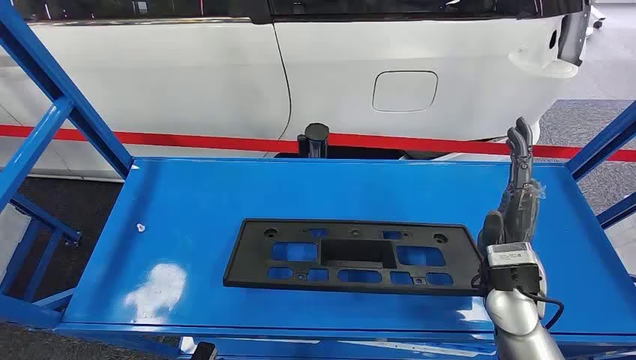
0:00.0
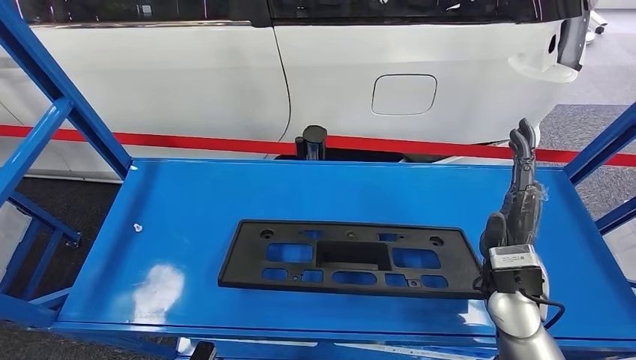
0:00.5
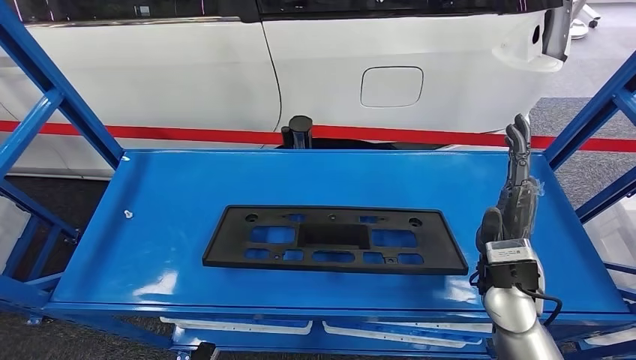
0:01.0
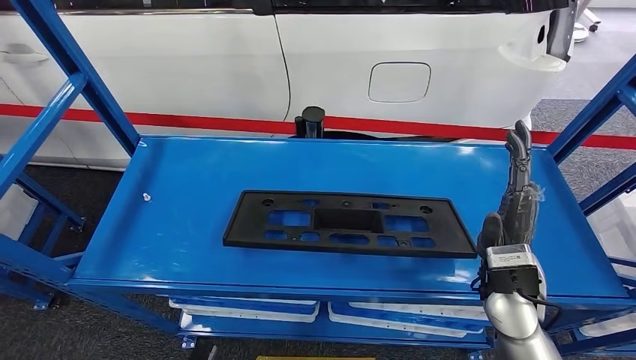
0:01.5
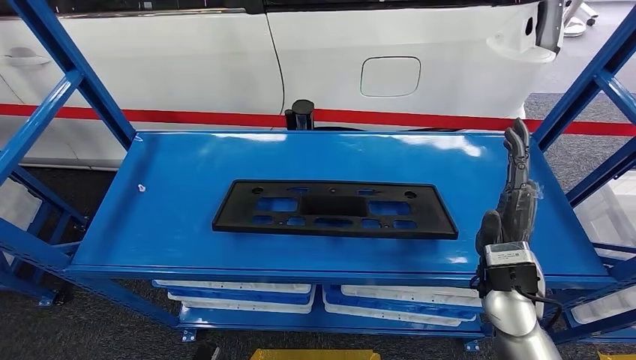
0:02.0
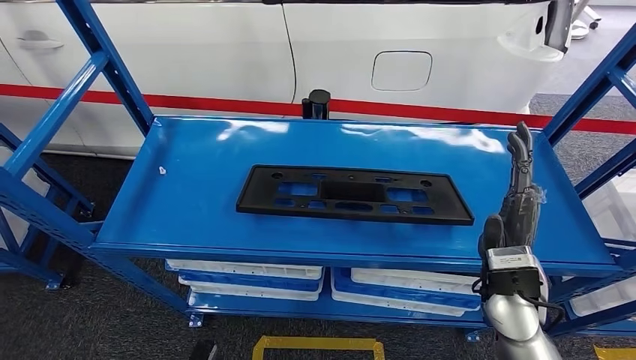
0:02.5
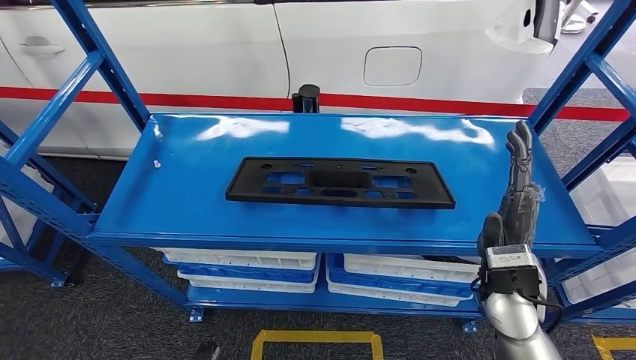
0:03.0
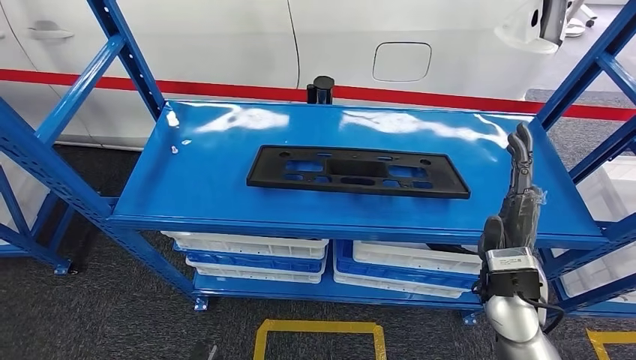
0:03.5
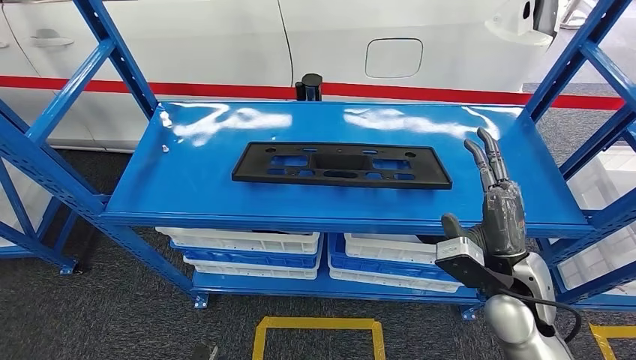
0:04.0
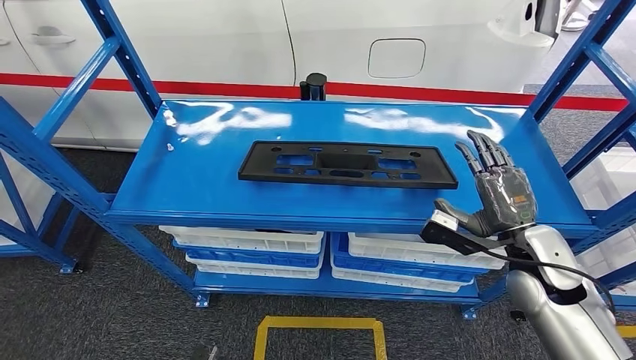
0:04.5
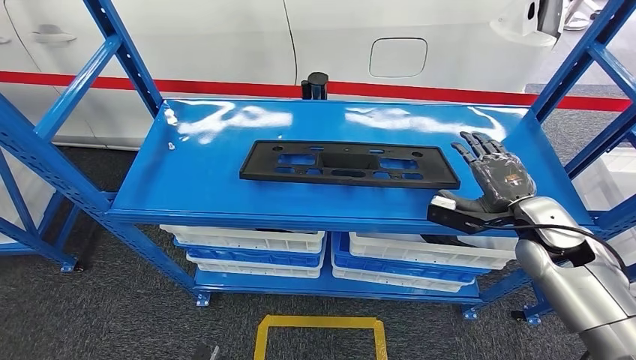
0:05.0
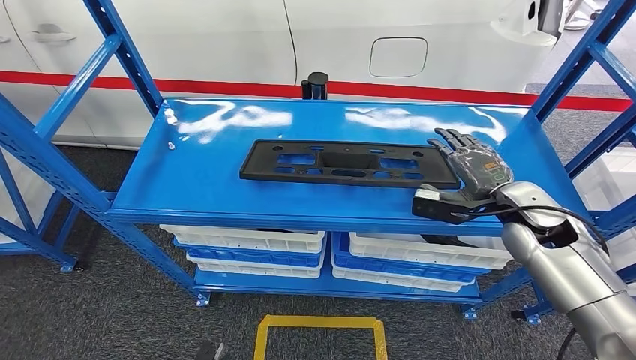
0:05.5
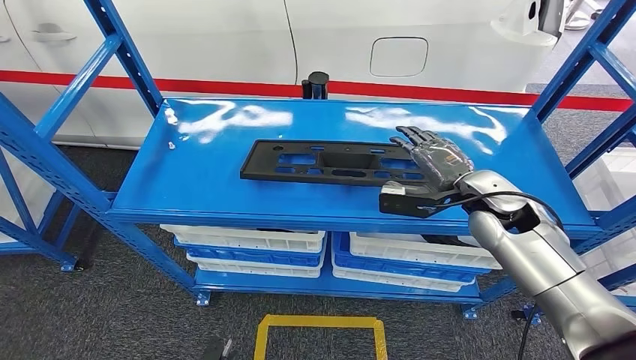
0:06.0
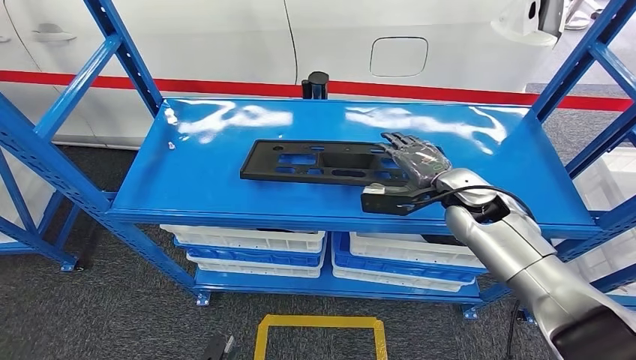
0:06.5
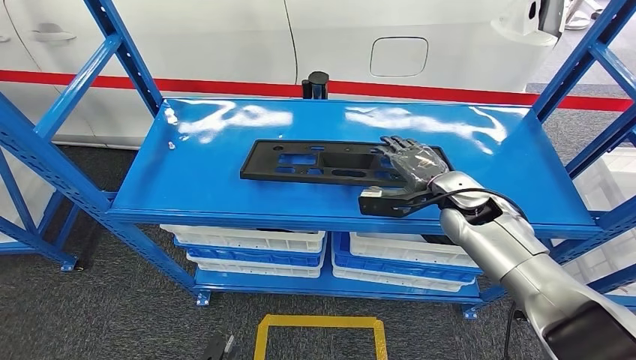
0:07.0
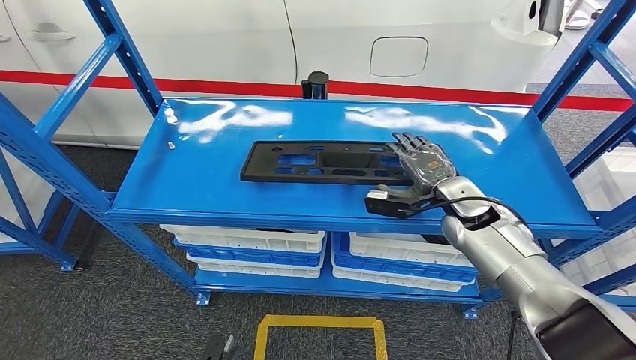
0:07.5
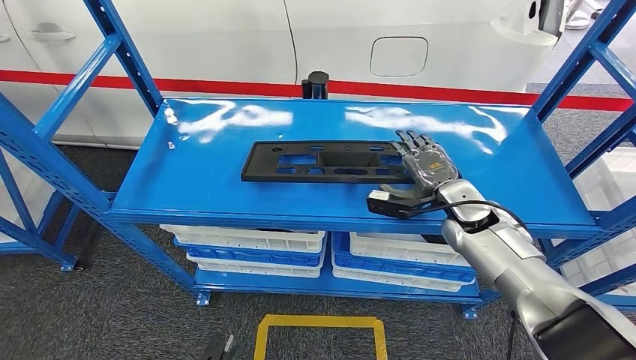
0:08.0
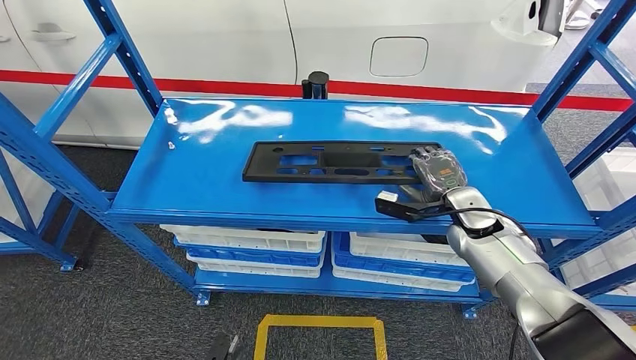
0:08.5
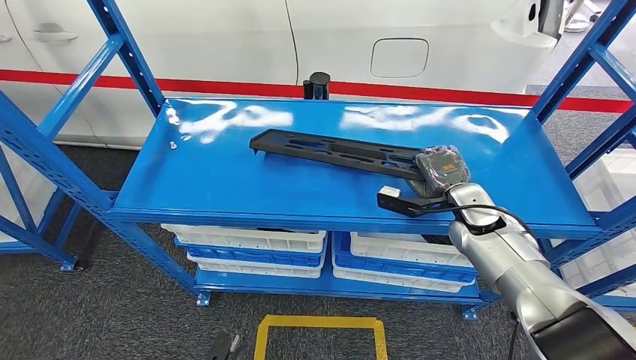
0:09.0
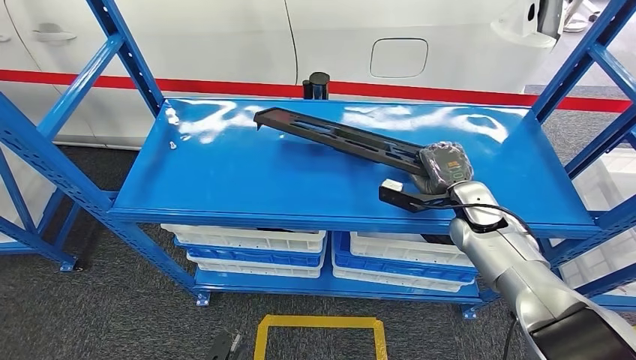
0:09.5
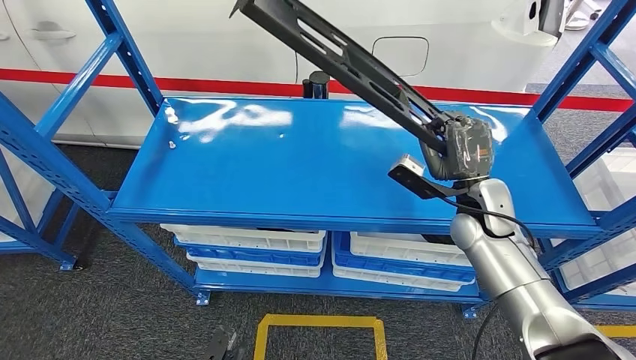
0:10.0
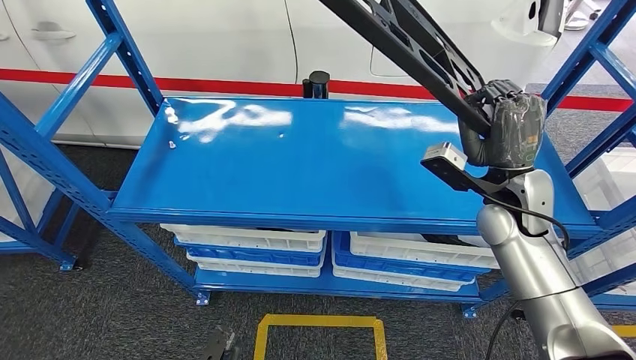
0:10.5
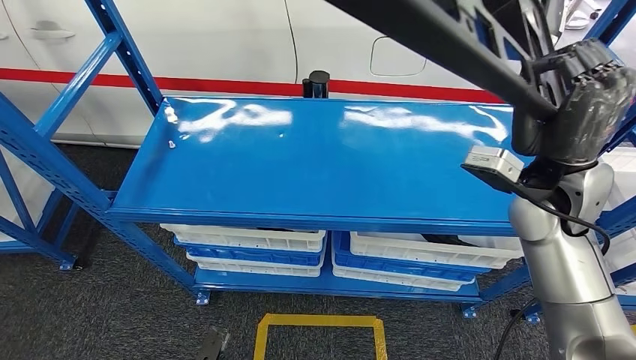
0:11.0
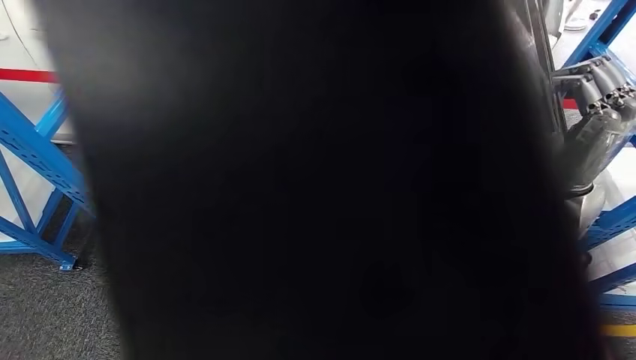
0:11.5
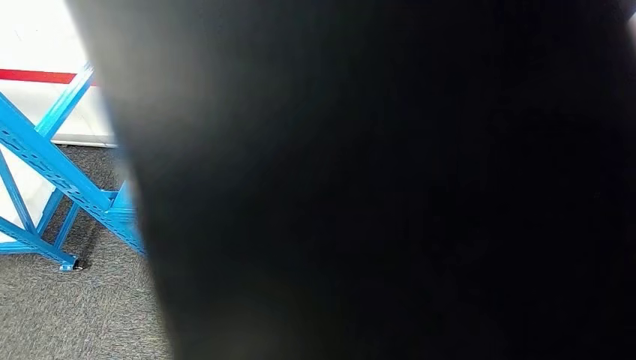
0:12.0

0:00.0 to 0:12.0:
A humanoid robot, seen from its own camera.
0:06.0 to 0:08.0: The right hand is displaced downward by roughly 5 cm.

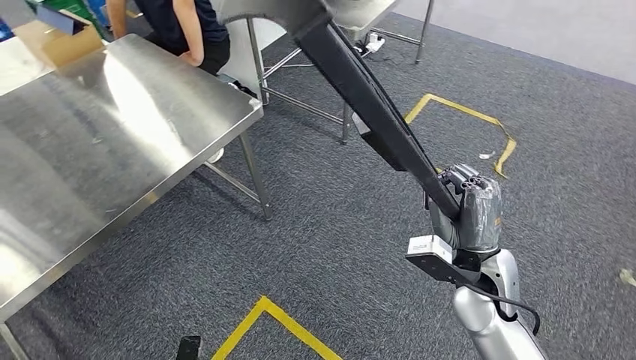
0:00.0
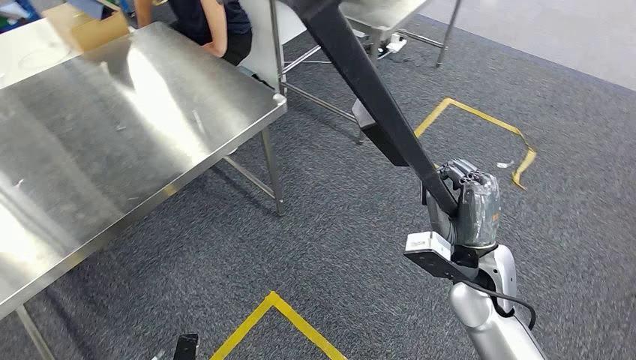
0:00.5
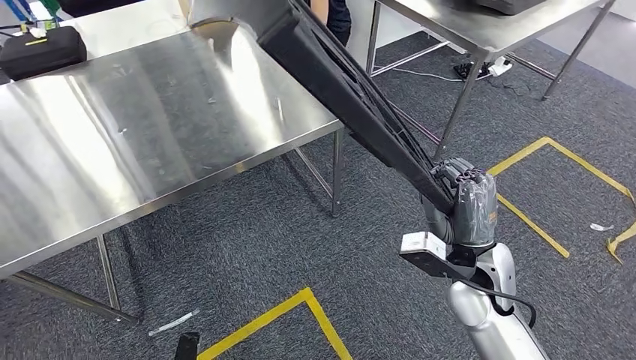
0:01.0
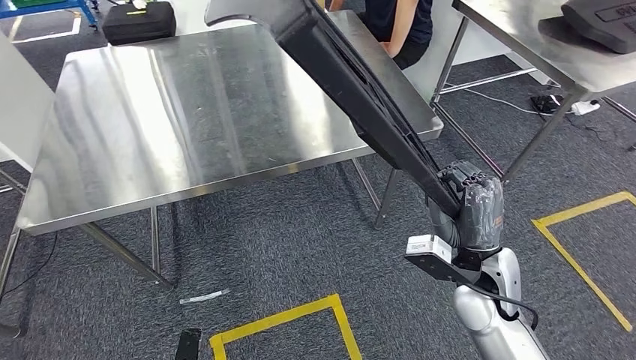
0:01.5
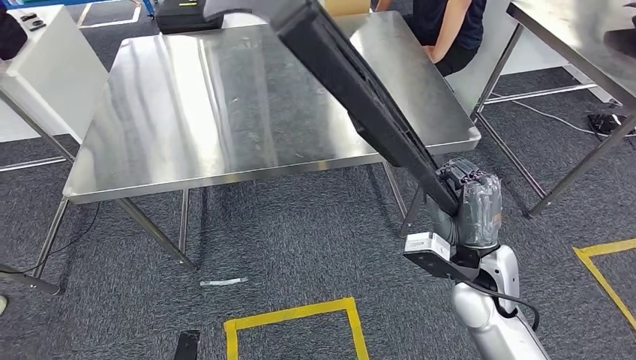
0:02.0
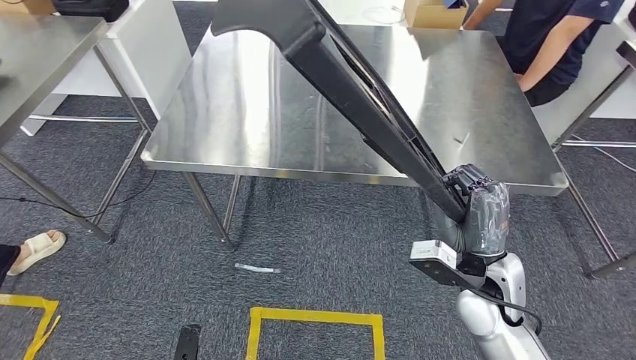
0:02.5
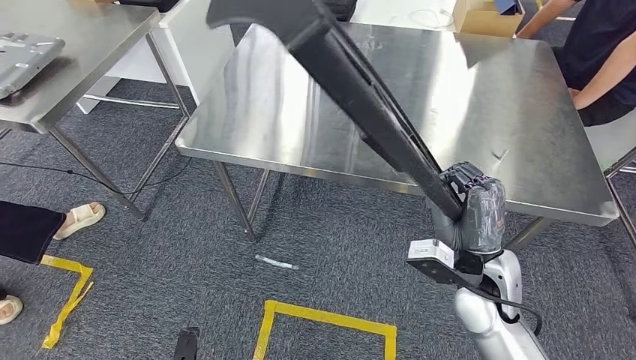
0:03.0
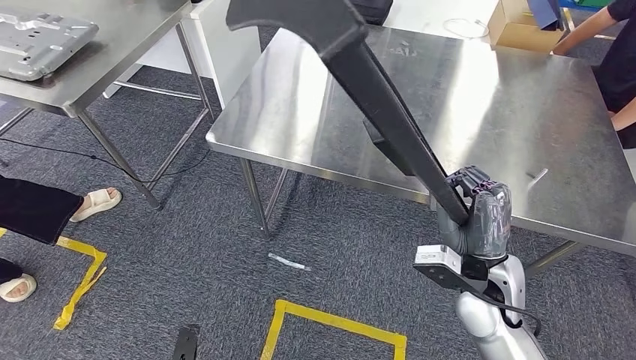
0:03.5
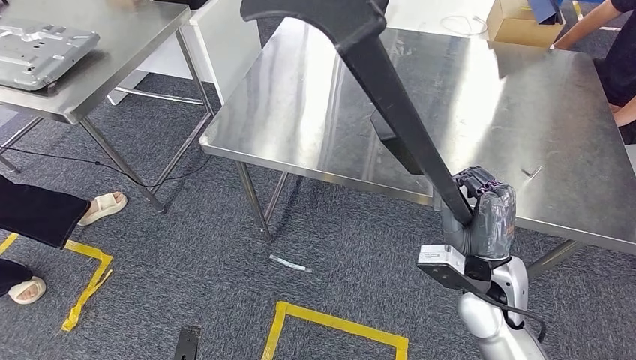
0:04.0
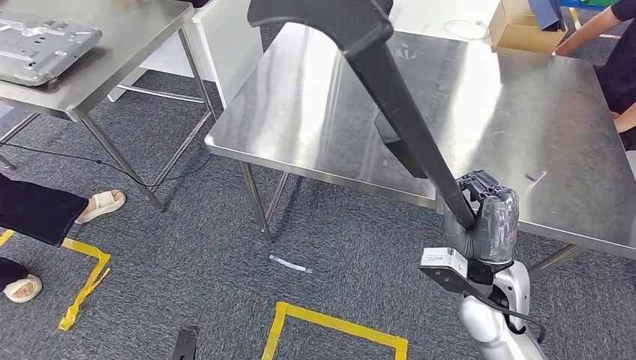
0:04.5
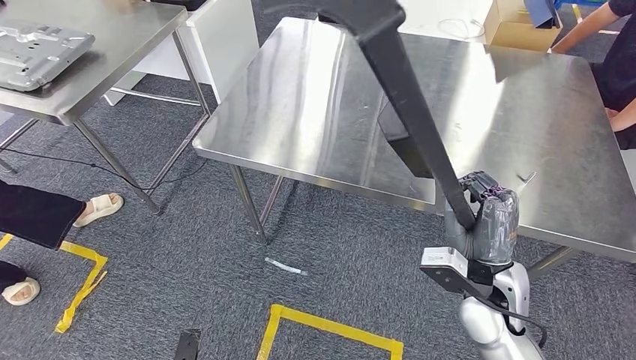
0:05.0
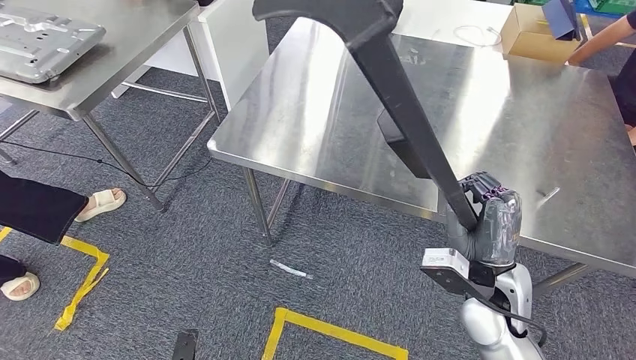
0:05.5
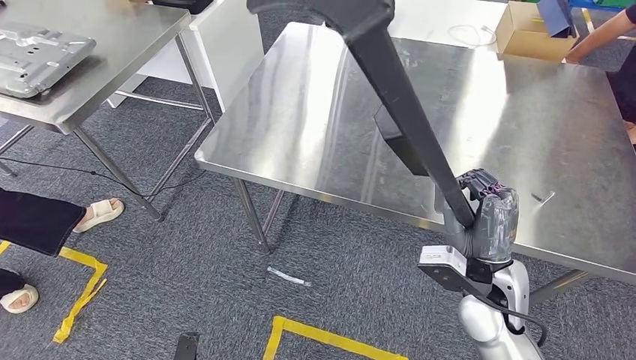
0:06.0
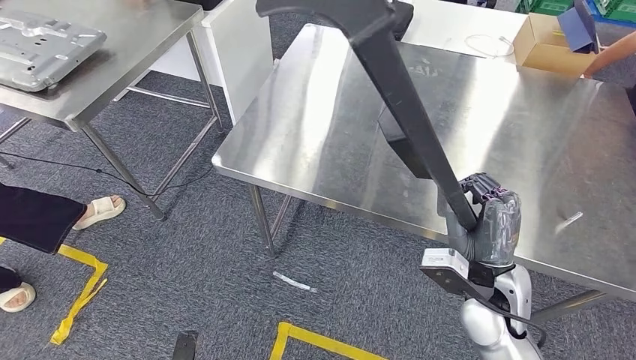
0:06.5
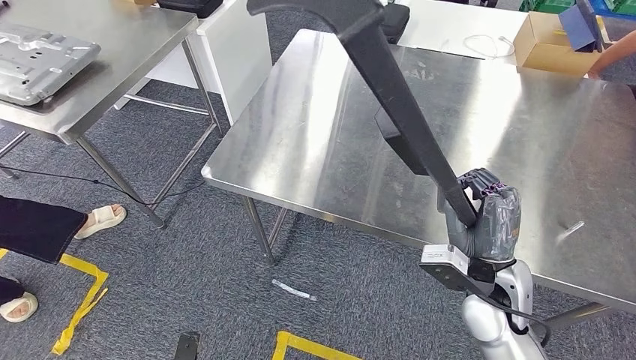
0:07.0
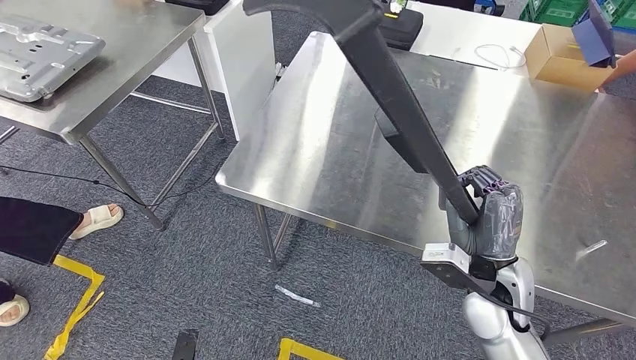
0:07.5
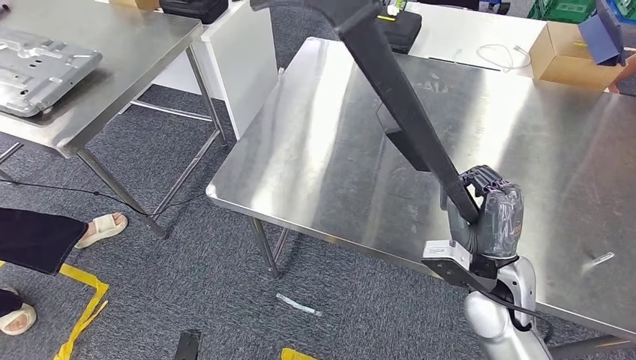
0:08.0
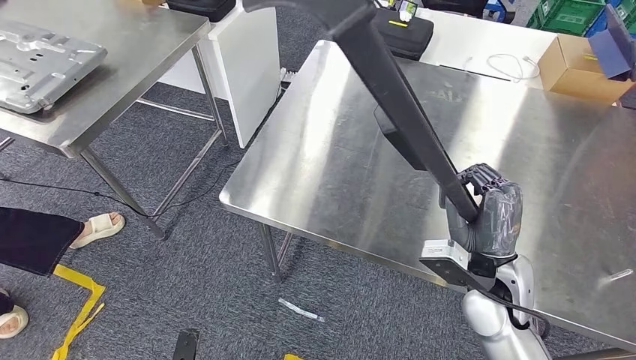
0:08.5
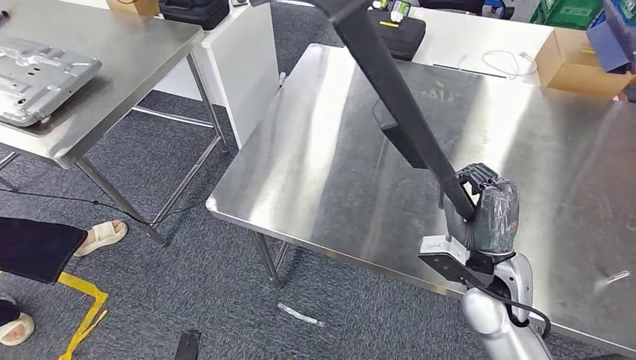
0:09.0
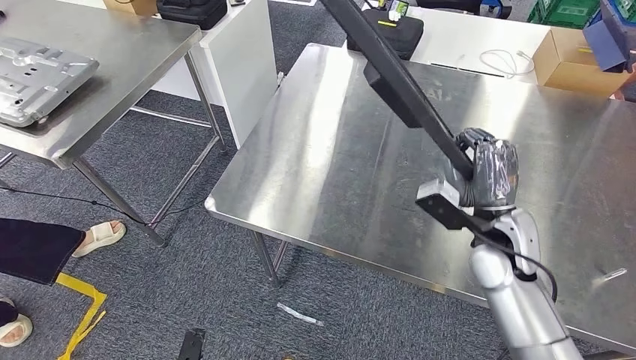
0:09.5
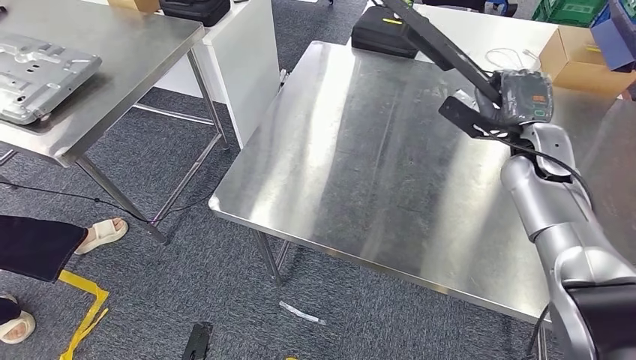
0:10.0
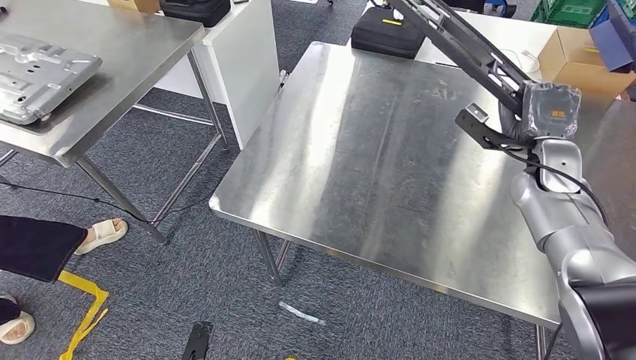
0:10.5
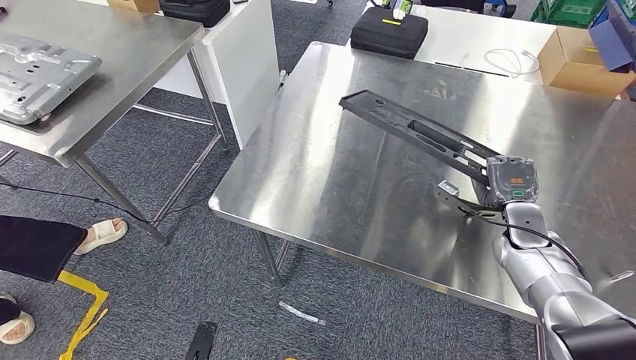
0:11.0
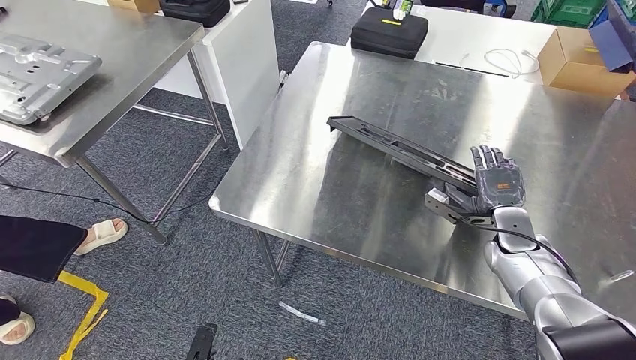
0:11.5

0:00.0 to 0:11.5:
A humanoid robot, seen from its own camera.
Step, 0:01.0 to 0:11.0: Insert the large material into the corresponding slot on the workbench.
